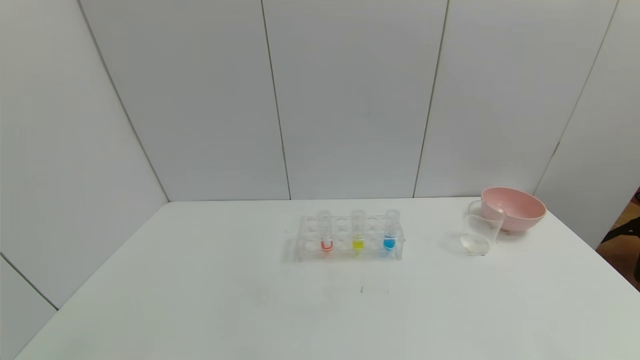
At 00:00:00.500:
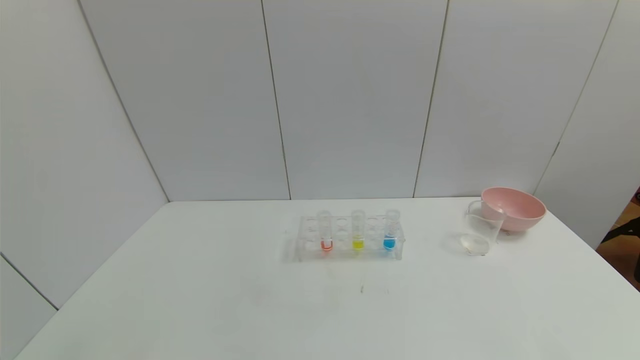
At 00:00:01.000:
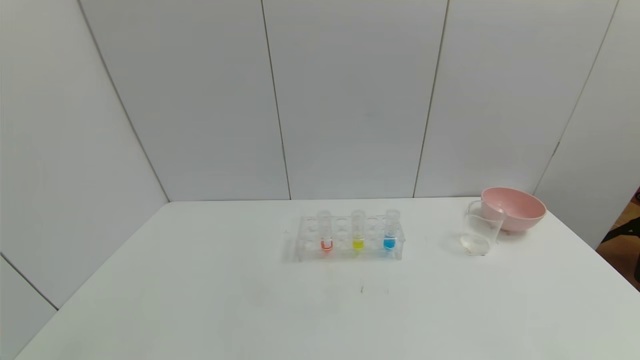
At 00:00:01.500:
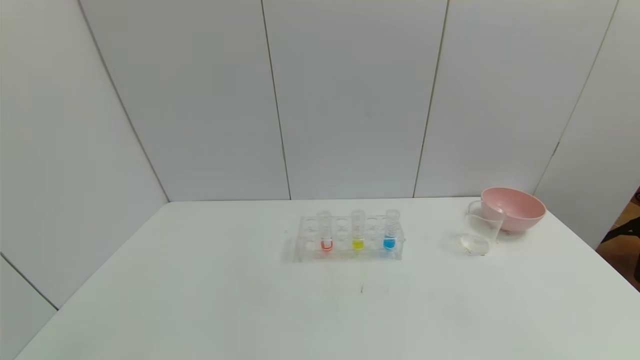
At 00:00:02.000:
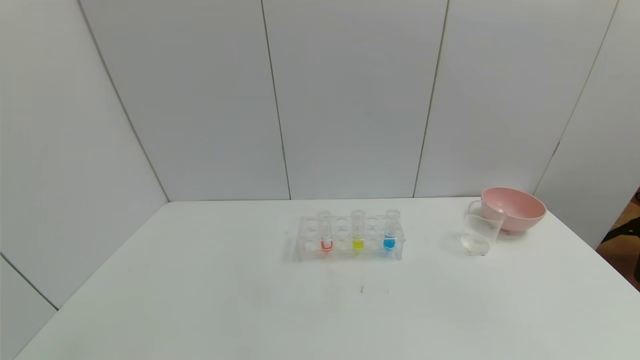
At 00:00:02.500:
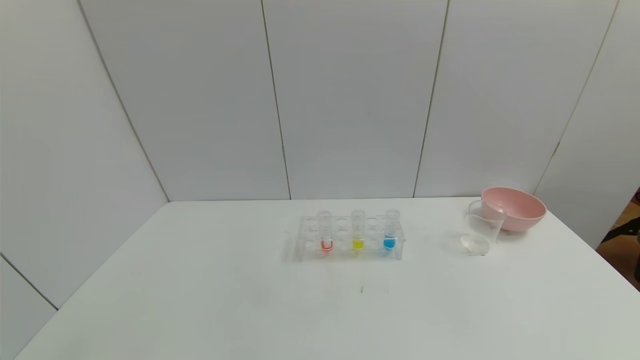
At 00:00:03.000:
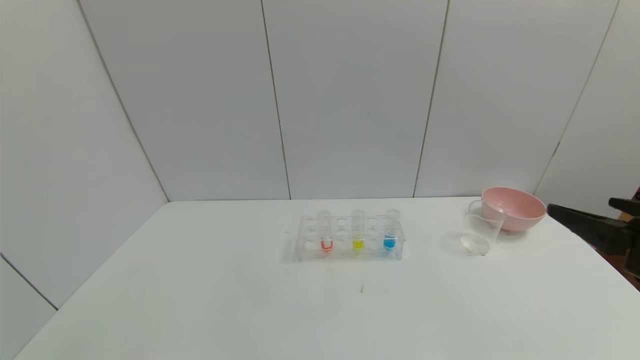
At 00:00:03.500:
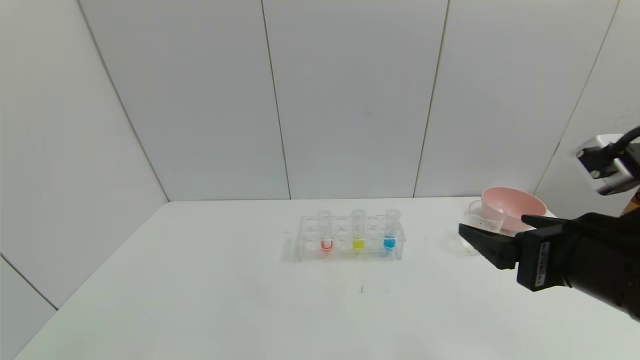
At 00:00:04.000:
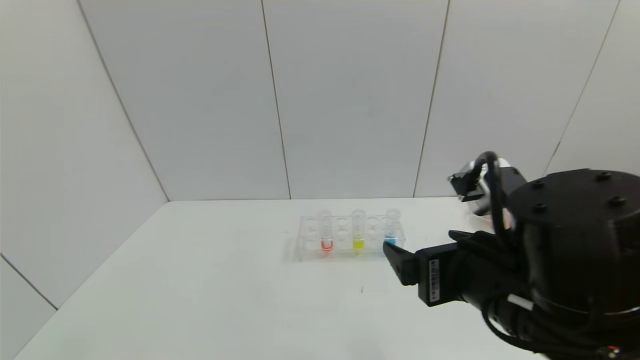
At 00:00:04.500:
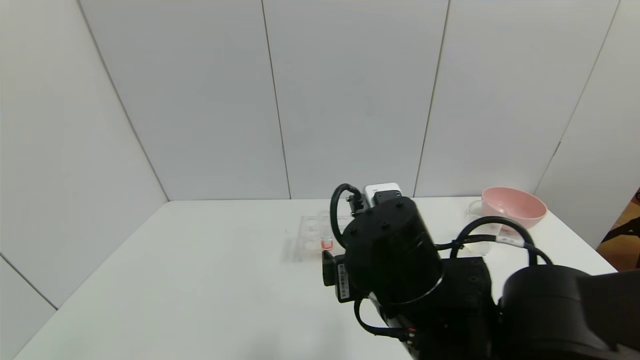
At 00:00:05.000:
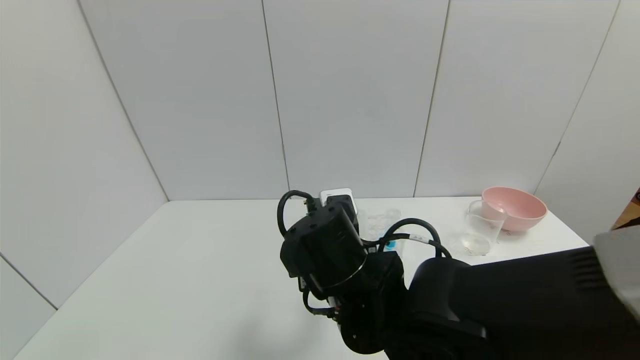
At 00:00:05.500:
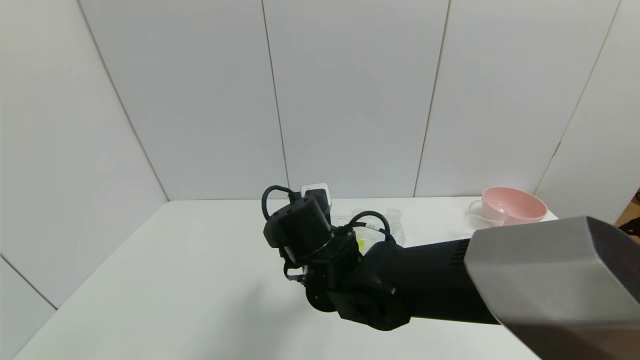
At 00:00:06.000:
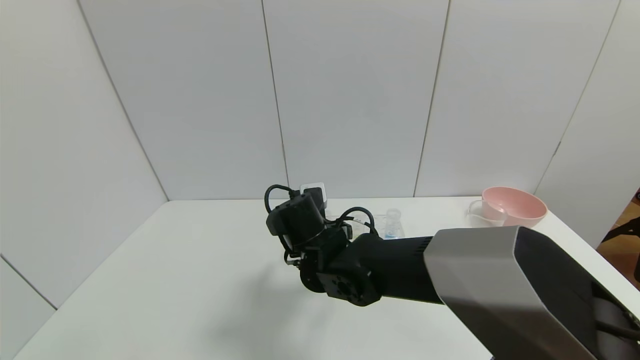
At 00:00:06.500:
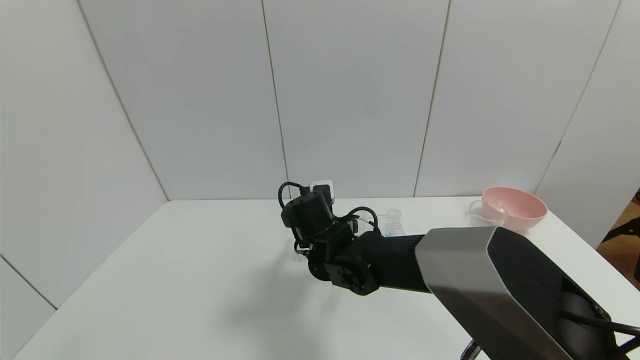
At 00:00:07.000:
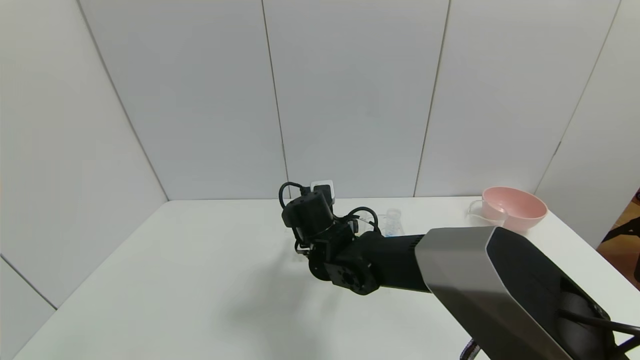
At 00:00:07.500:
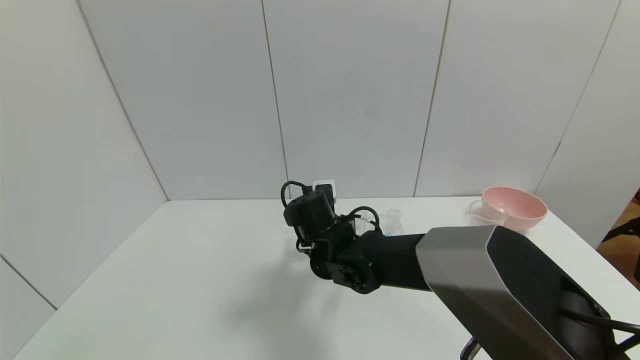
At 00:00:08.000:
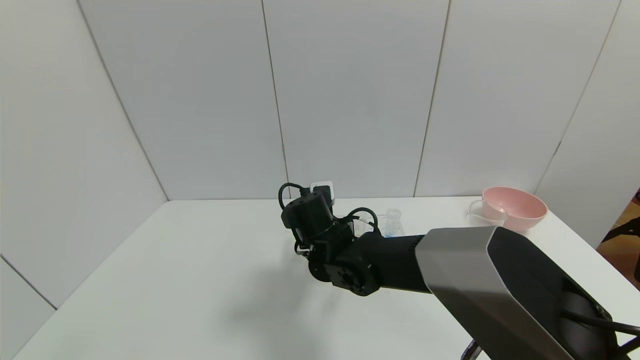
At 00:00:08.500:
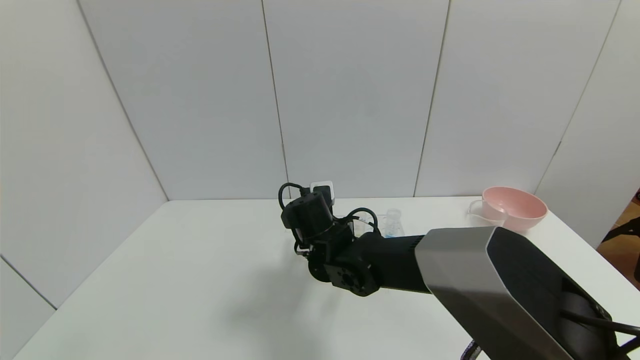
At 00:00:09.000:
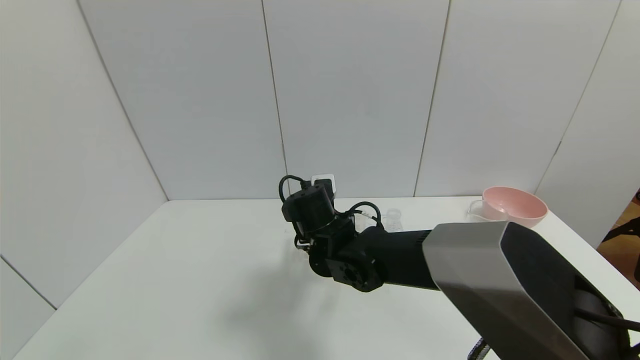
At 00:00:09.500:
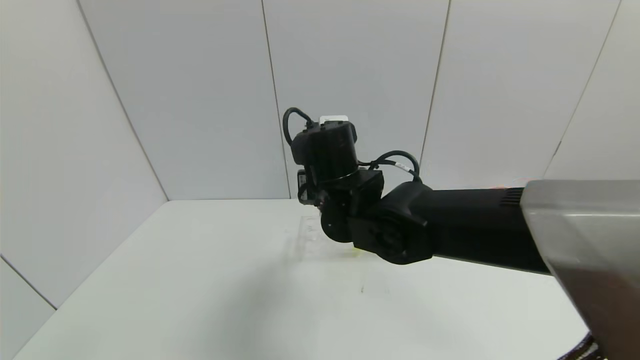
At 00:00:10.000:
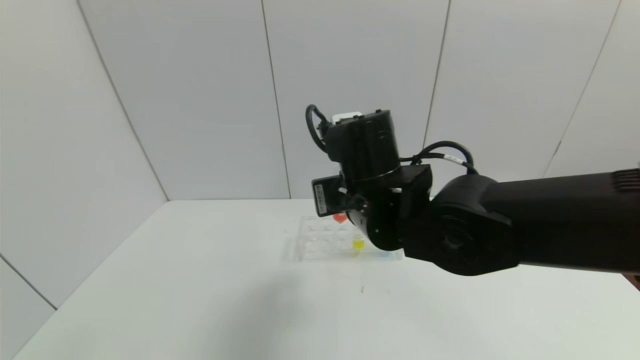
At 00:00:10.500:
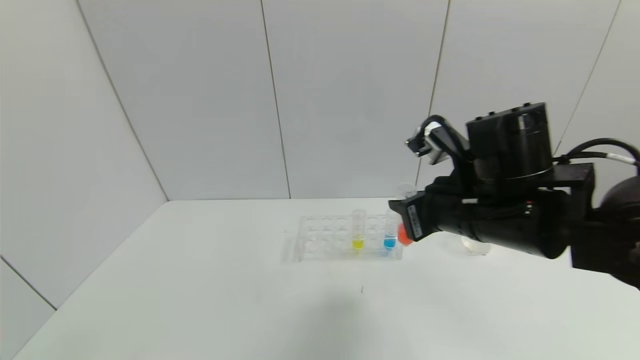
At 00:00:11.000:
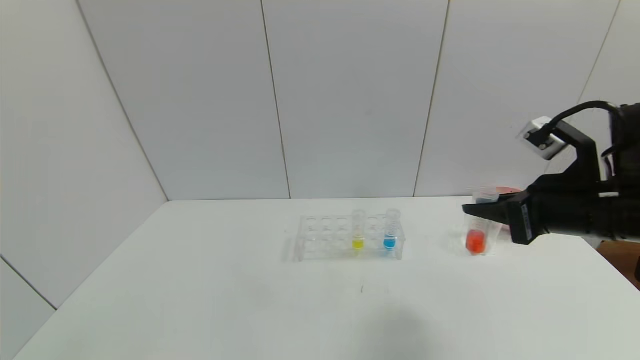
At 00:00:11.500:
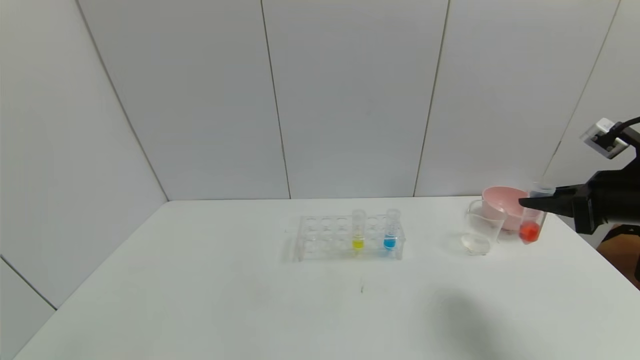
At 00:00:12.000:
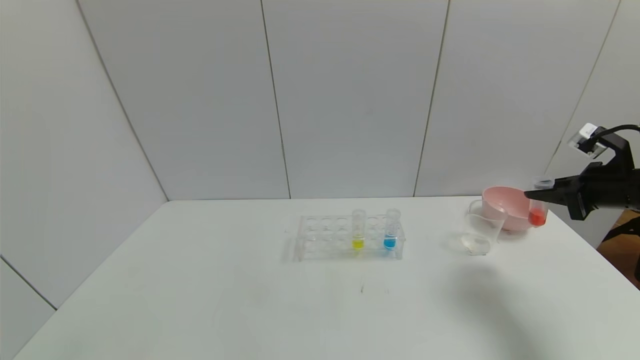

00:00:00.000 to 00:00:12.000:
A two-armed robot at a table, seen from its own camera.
Task of the whole recording: pick up the test tube with yellow pigment and the test tube with red pigment by grippers and pour them into the beaker.
Step, 00:00:00.000 to 00:00:07.500: Grasp the red reagent with the right gripper.
00:00:02.000 to 00:00:04.000: The right gripper heads to the left and forward, covering some 25 cm.
00:00:04.000 to 00:00:06.000: The right gripper moves to the left, forward and downward, about 25 cm.
00:00:06.000 to 00:00:08.000: The right gripper closes.
00:00:08.000 to 00:00:10.000: The right gripper heads upward, backward and to the right, covering approximately 15 cm.
00:00:10.000 to 00:00:12.000: The right gripper goes roughly 40 cm to the right.

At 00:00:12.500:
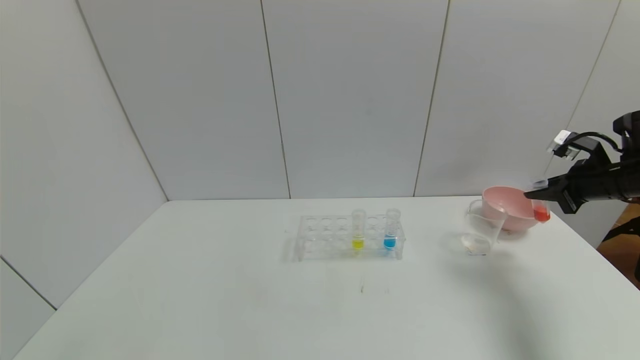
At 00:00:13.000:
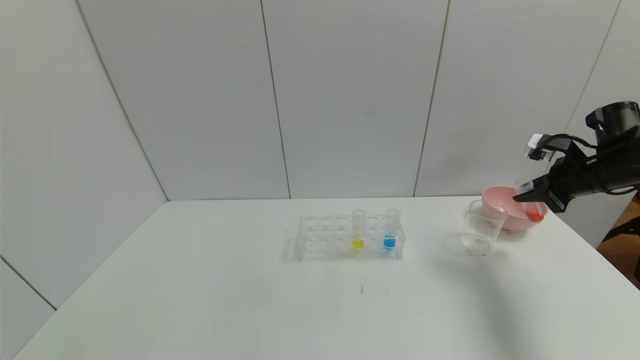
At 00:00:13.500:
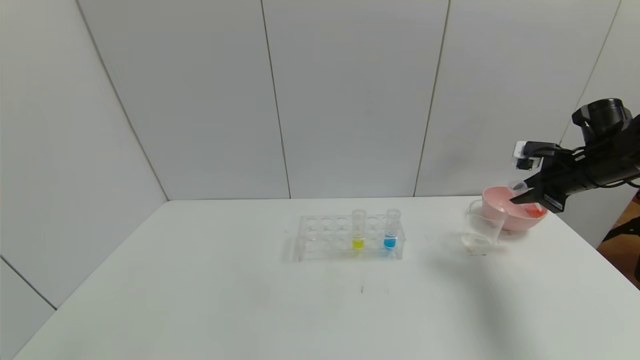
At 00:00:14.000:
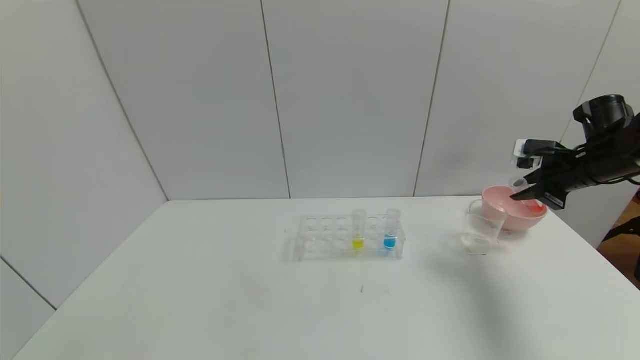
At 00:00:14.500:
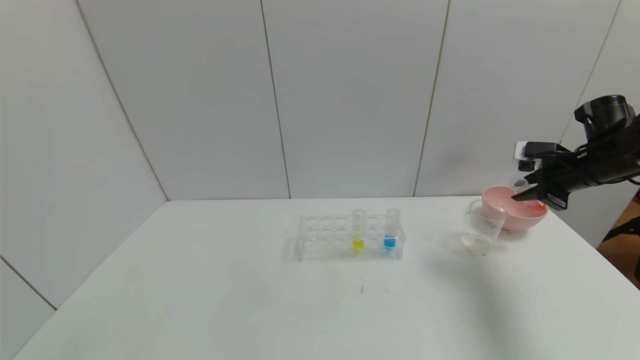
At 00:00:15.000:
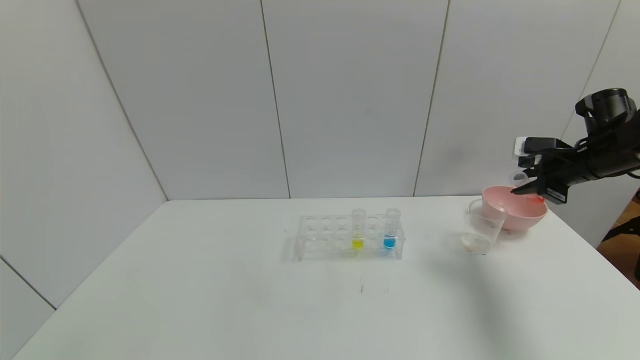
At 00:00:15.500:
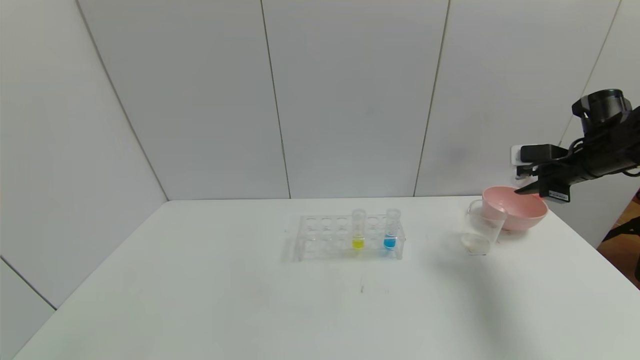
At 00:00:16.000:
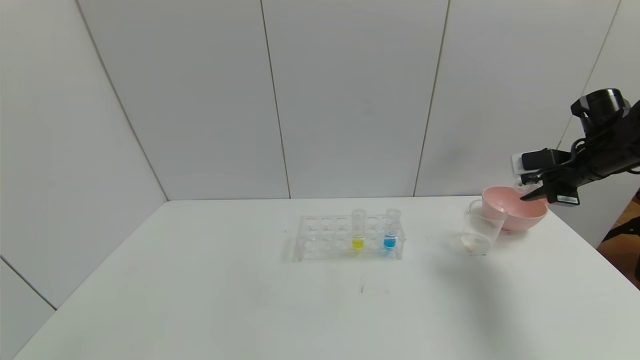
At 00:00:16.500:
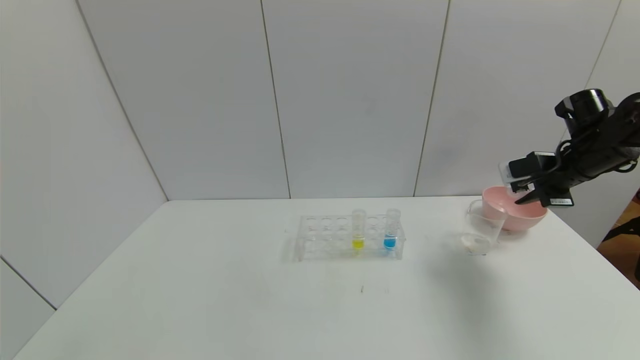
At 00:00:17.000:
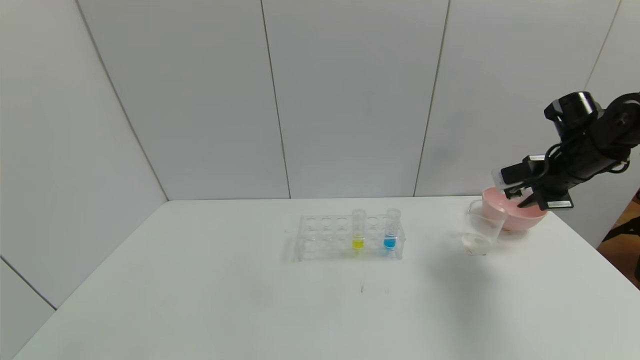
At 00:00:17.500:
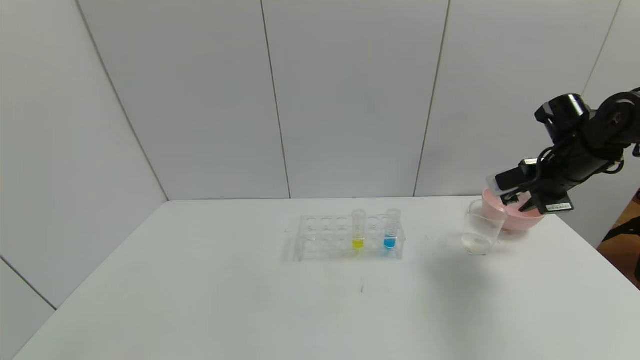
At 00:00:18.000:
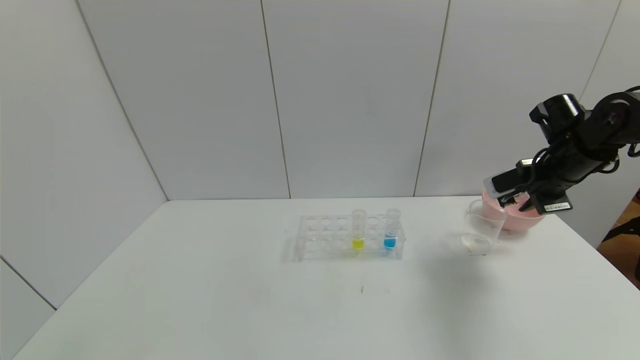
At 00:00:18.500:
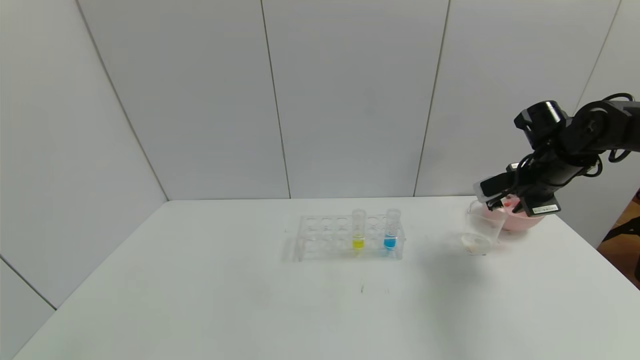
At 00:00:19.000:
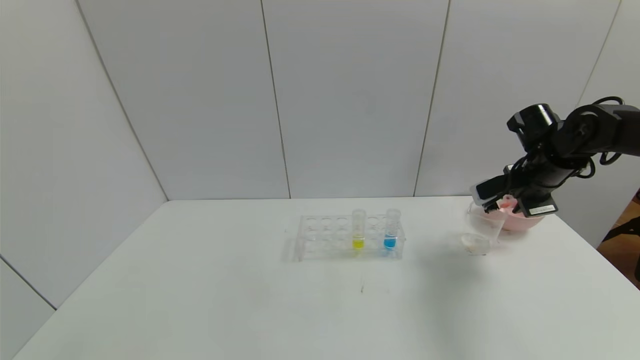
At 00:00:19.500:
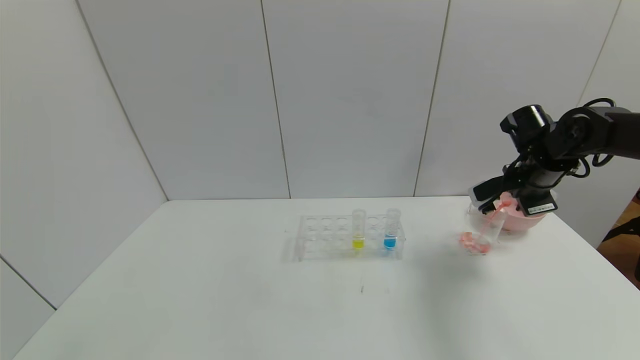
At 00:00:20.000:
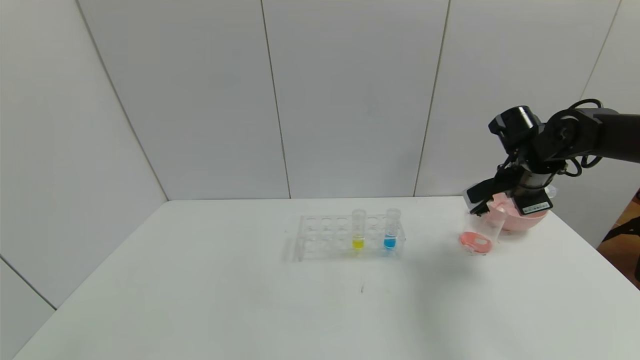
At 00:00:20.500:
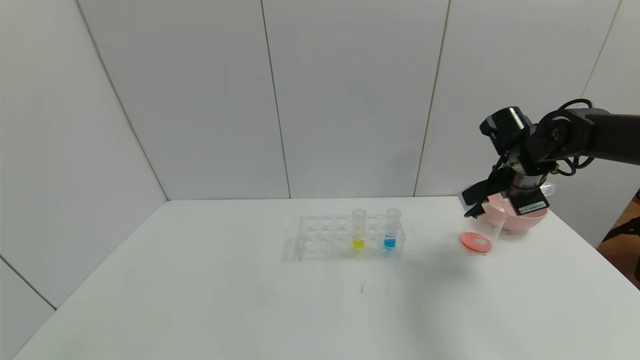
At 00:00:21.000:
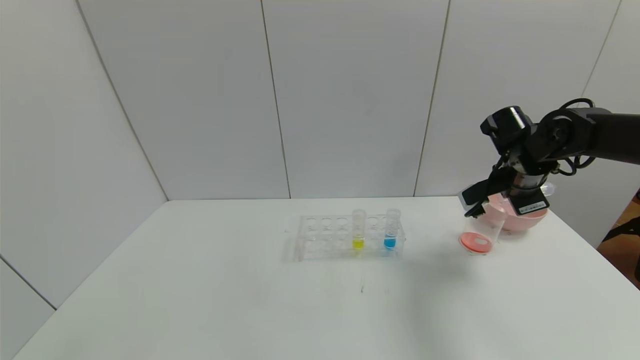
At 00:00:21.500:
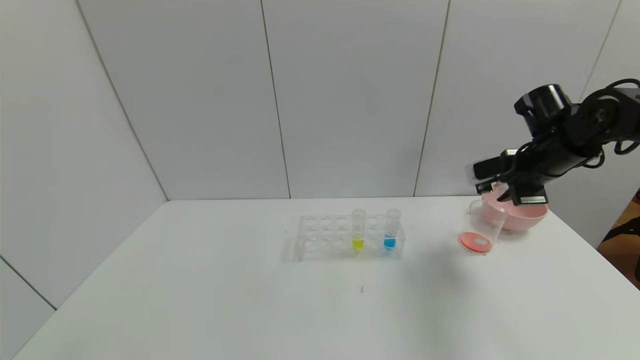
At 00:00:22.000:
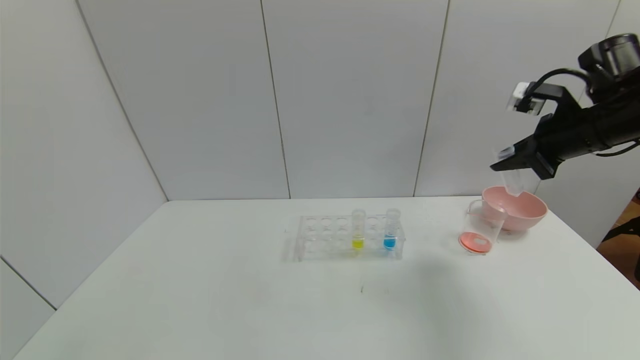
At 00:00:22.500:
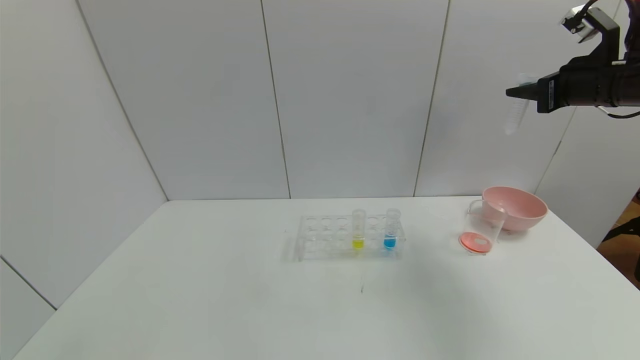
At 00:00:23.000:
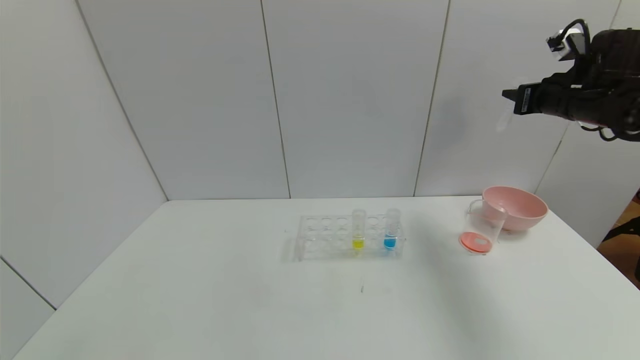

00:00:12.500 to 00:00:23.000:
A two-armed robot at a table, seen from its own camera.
Task of the whole recording: pick up the test tube with yellow pigment and the test tube with red pigment by grippers and pour them into the beaker.
Step, 00:00:12.500 to 00:00:21.000: Pour the red reagent into the graduated cylinder with the right gripper.
00:00:16.500 to 00:00:19.000: The right gripper ends up approximately 5 cm from where it was.
00:00:19.000 to 00:00:21.000: The grippers move only a little.
00:00:21.000 to 00:00:23.000: The right gripper heads upward and to the right, covering about 15 cm.
